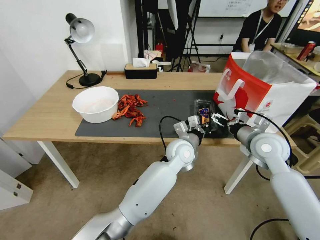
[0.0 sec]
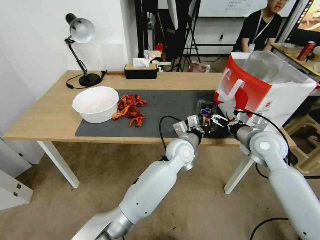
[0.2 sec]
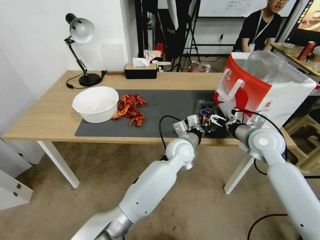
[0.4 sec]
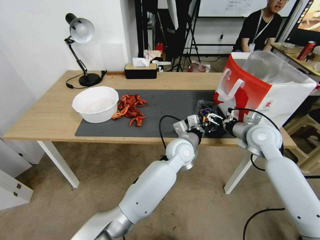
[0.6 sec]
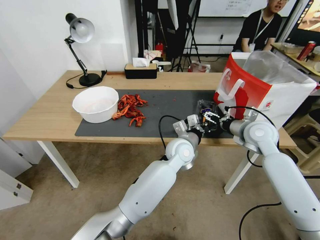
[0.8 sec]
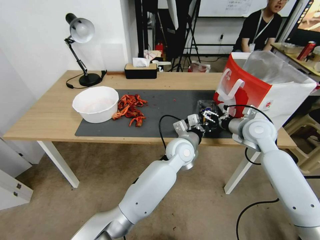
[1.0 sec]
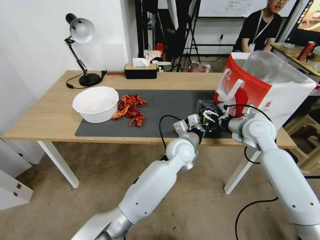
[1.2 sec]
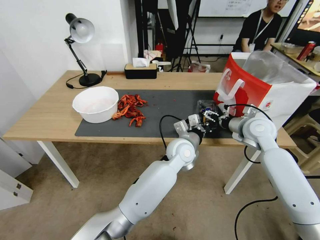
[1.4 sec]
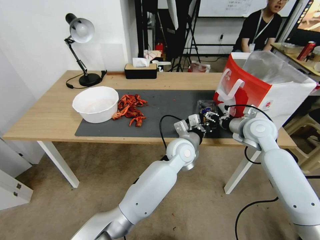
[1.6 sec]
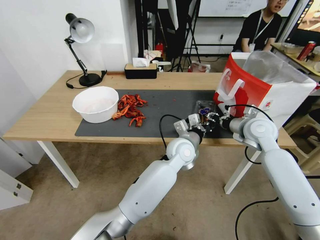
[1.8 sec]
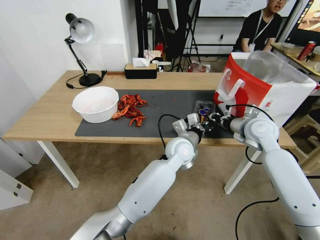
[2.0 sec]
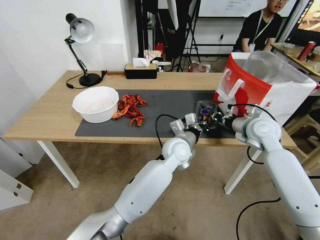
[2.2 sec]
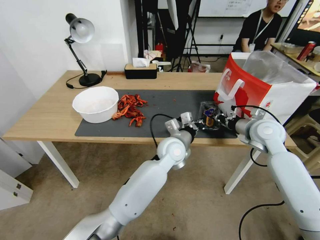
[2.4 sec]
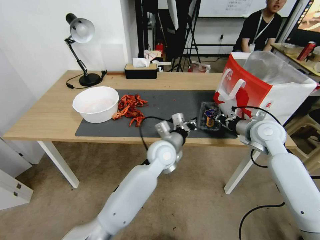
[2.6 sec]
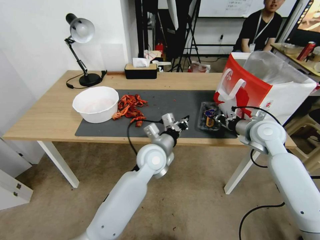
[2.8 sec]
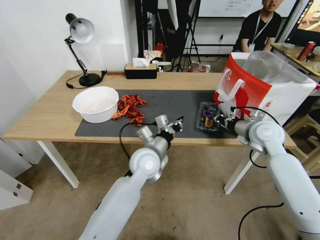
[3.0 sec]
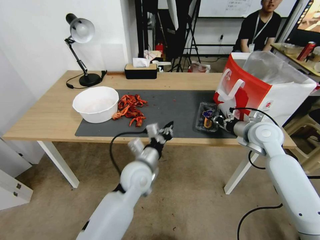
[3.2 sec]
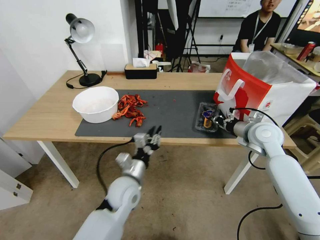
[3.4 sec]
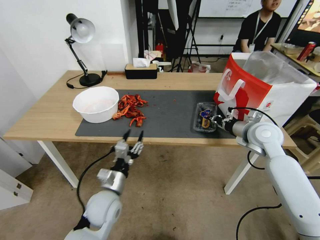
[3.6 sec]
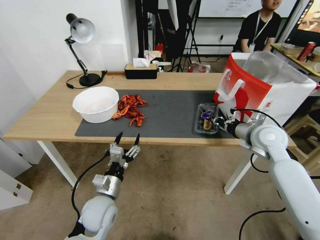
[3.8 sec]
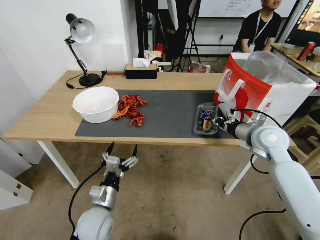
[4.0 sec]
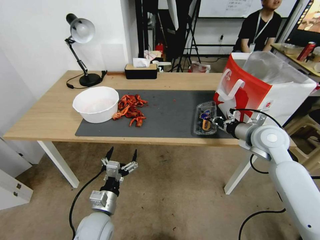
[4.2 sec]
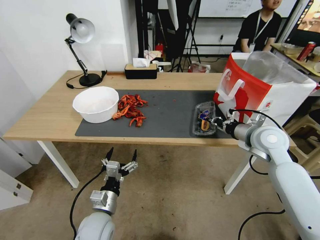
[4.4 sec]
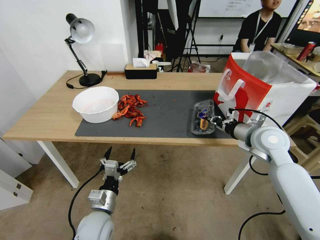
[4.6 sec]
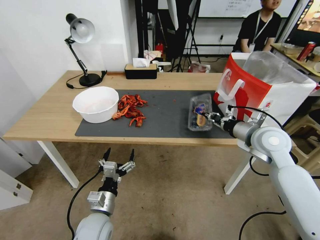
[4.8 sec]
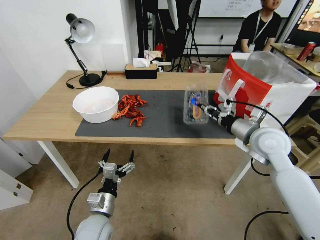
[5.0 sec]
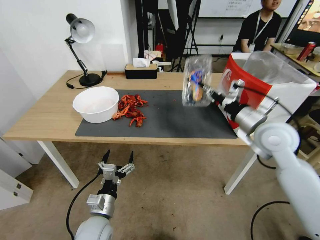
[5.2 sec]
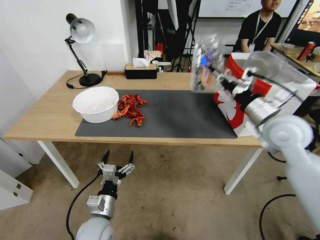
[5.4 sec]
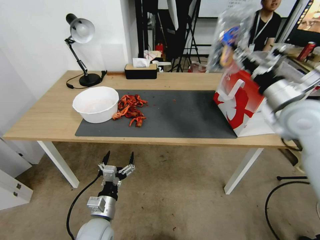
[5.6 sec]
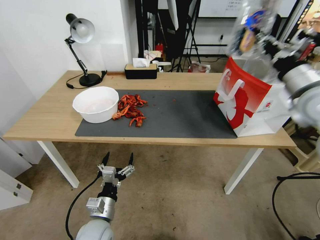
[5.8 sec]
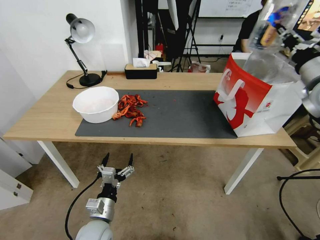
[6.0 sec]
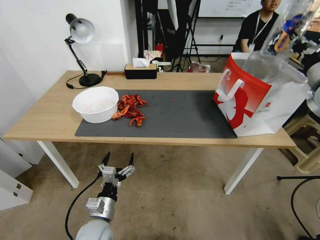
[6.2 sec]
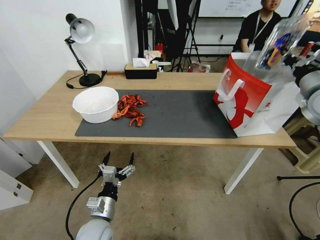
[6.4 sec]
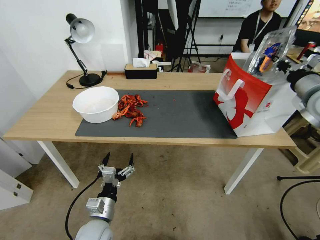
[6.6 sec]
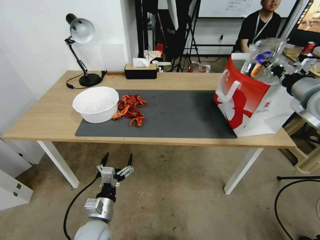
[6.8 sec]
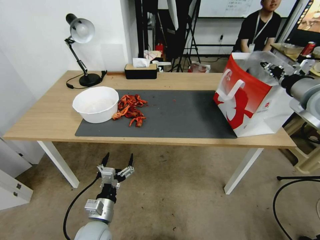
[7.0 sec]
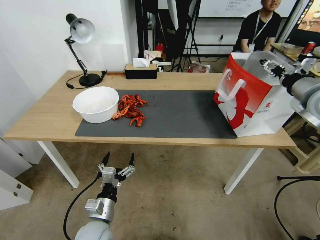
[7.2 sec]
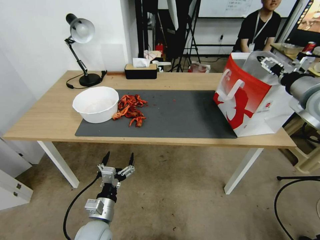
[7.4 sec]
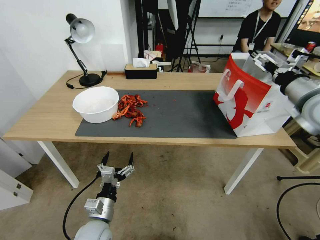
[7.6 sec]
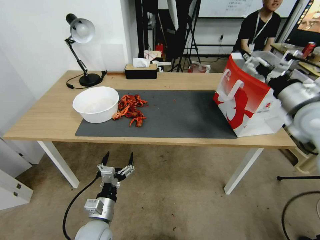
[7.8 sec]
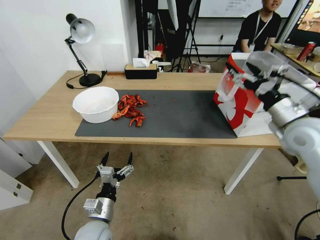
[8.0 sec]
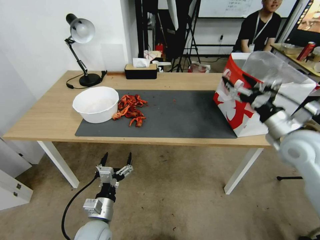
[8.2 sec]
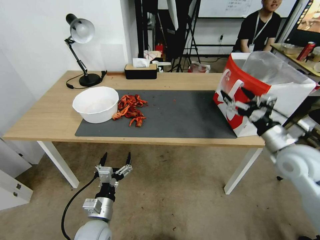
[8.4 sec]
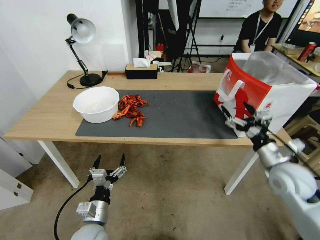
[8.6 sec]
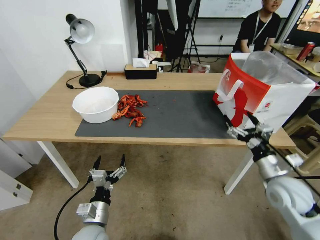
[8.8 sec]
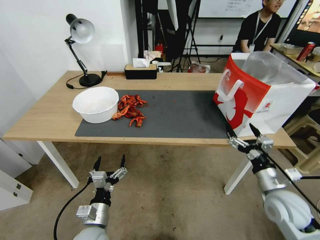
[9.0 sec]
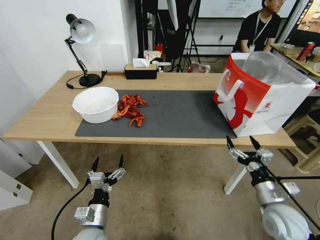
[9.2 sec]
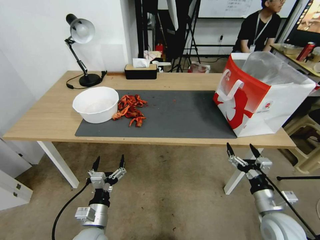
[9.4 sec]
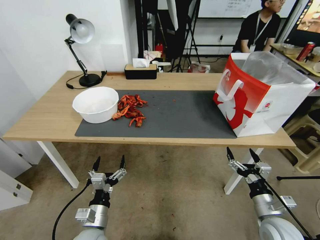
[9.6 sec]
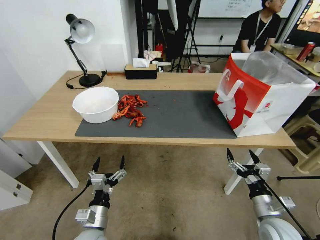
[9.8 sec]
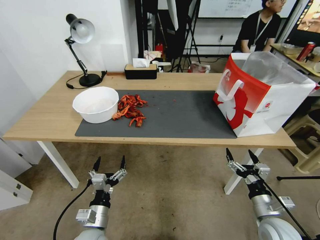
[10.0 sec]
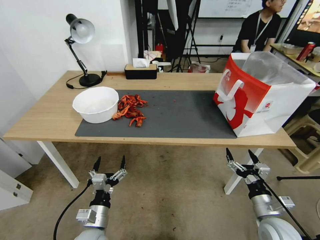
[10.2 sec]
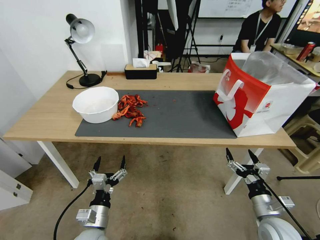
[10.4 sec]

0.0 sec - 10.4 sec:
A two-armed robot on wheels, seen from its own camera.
Task of the whole recording: Close the takeout container lid, then place the container into the takeout bag.
0.0 sec - 1.4 sec: The right gripper shifts roughly 5 cm forward.
1.4 sec - 3.0 sec: The right gripper closes; the left gripper shifts approximately 15 cm to the left and backward.
3.0 sec - 4.4 sec: The left gripper goes roughly 25 cm backward, to the left and downward, and opens up.
4.4 sec - 6.0 sec: The right gripper heads upward, covering about 15 cm.
6.0 sec - 7.4 sec: The right gripper opens.
7.4 sec - 9.0 sec: The right gripper travels downward and backward by roughly 30 cm.
9.0 sec - 10.4 sec: The right gripper goes roughly 10 cm downward and backward.

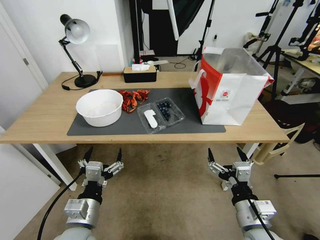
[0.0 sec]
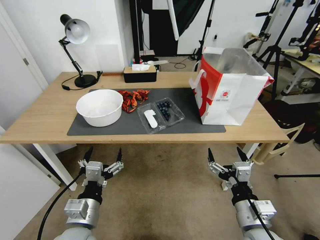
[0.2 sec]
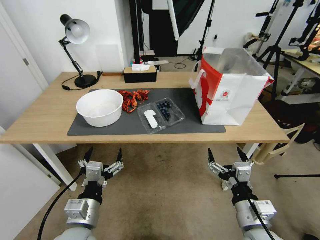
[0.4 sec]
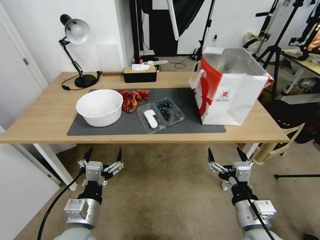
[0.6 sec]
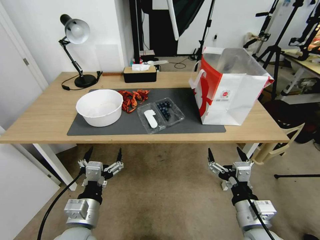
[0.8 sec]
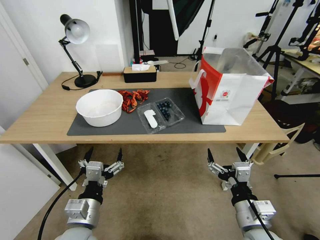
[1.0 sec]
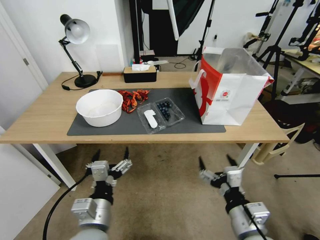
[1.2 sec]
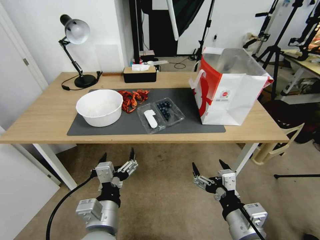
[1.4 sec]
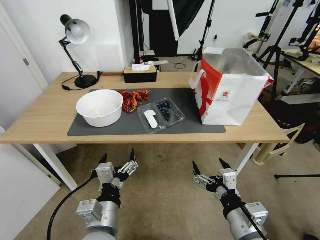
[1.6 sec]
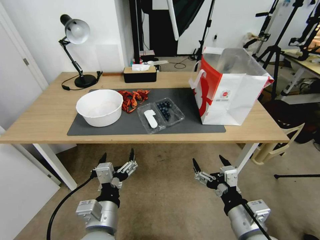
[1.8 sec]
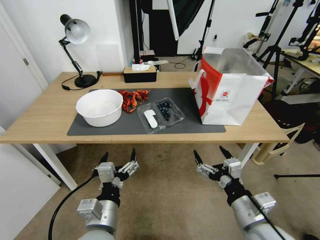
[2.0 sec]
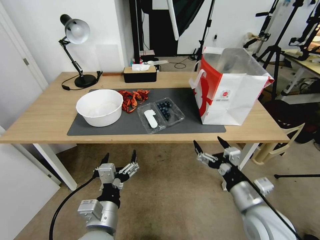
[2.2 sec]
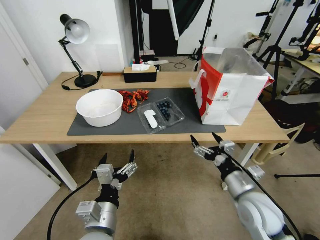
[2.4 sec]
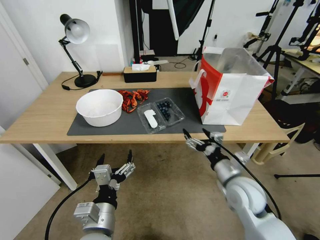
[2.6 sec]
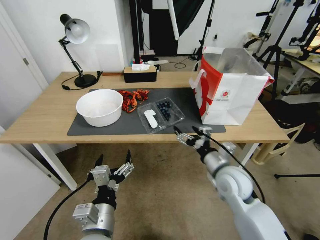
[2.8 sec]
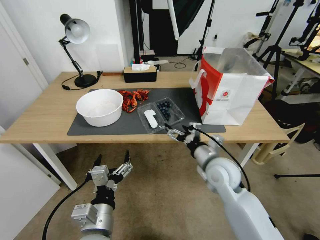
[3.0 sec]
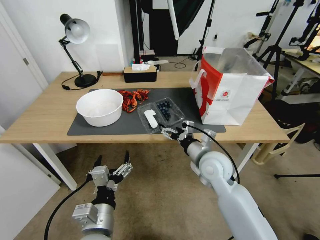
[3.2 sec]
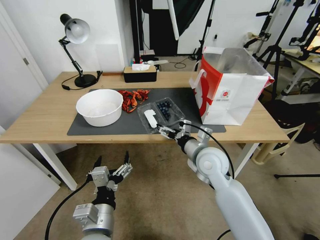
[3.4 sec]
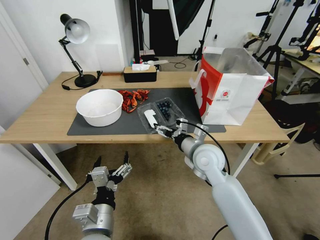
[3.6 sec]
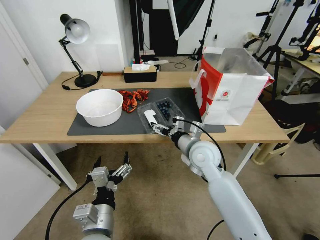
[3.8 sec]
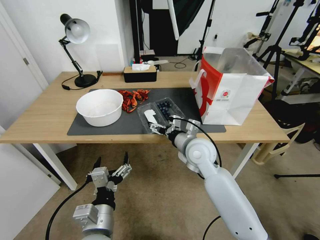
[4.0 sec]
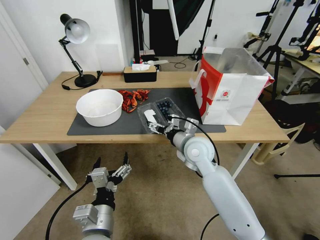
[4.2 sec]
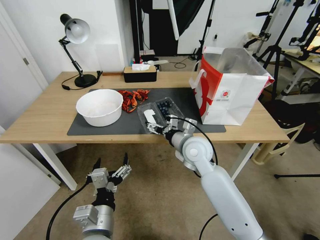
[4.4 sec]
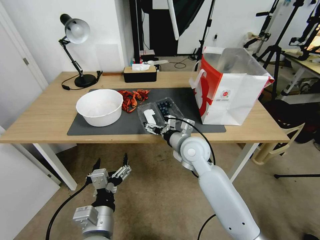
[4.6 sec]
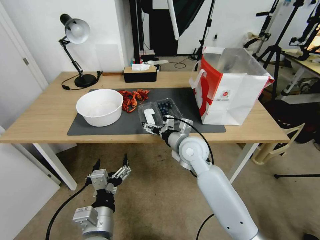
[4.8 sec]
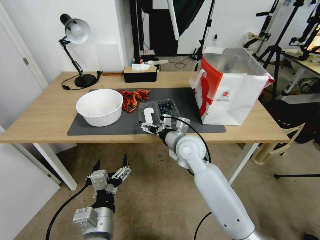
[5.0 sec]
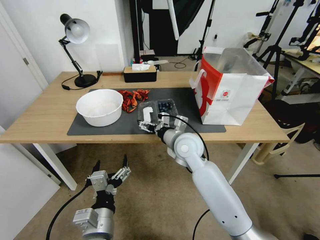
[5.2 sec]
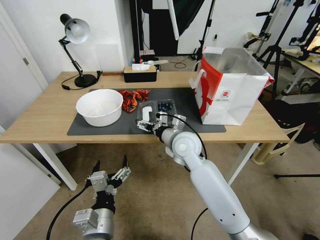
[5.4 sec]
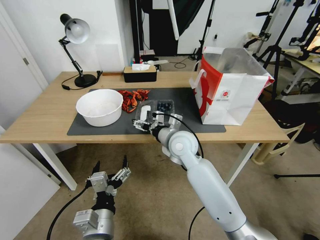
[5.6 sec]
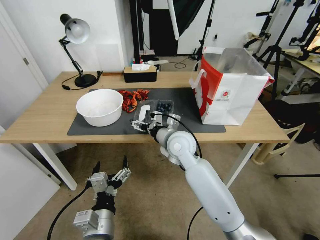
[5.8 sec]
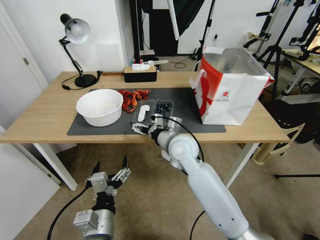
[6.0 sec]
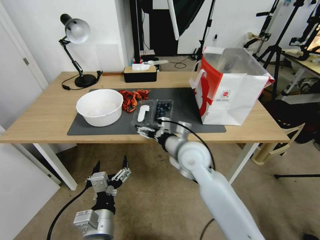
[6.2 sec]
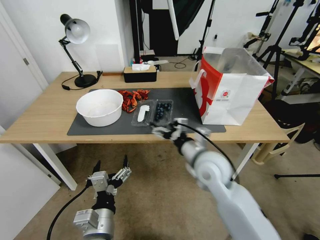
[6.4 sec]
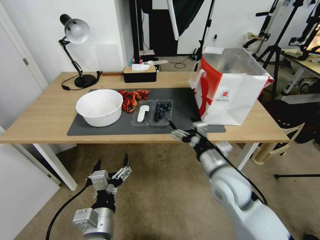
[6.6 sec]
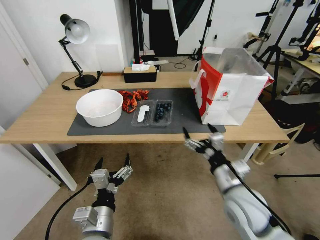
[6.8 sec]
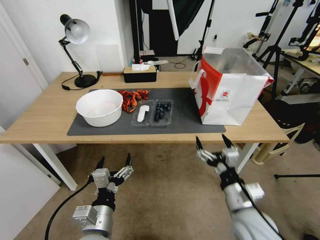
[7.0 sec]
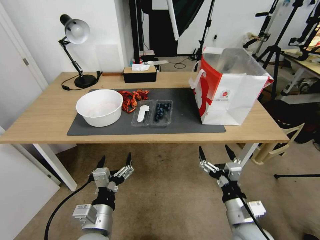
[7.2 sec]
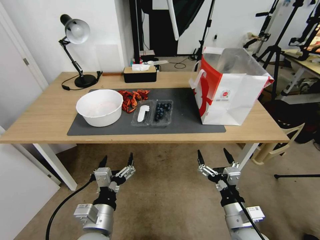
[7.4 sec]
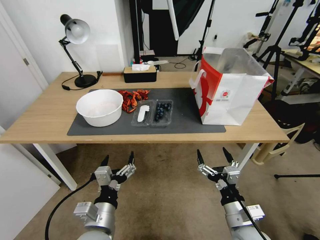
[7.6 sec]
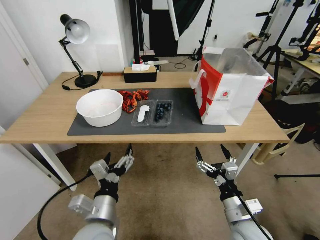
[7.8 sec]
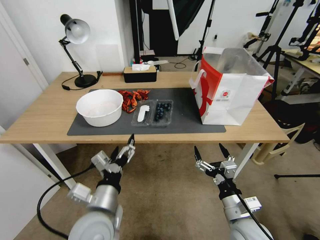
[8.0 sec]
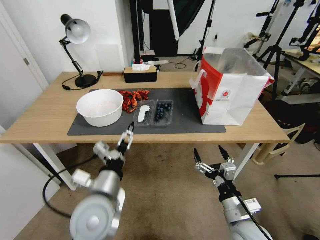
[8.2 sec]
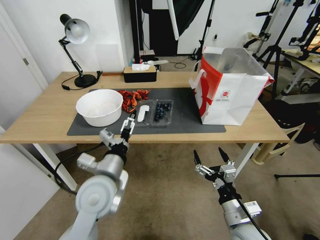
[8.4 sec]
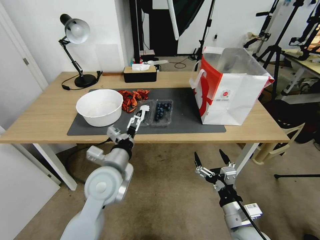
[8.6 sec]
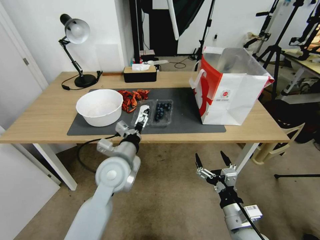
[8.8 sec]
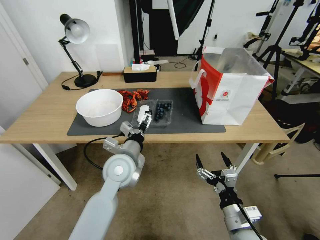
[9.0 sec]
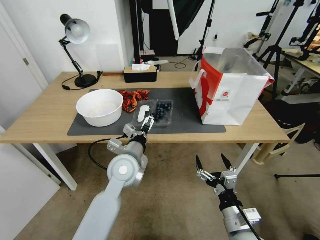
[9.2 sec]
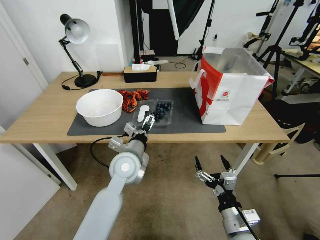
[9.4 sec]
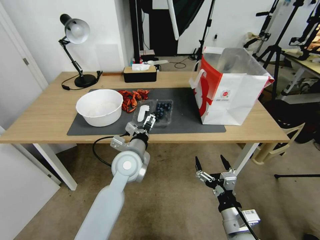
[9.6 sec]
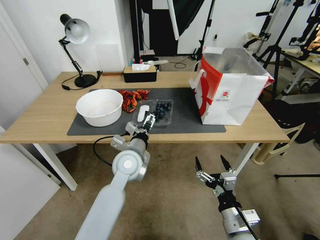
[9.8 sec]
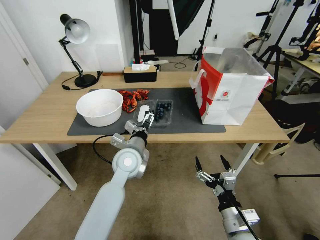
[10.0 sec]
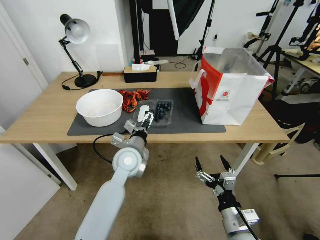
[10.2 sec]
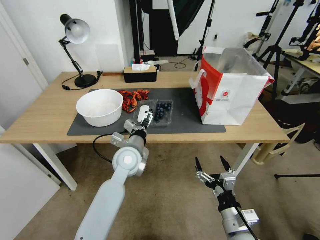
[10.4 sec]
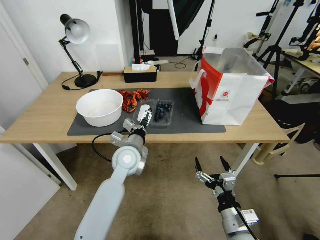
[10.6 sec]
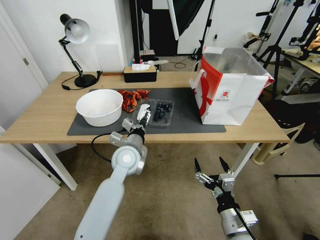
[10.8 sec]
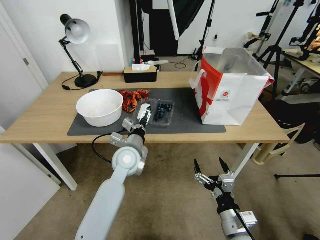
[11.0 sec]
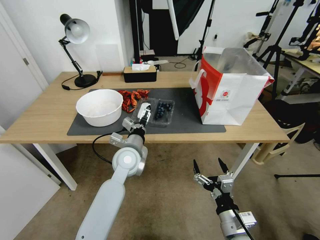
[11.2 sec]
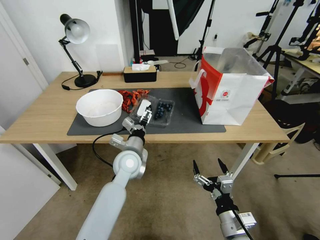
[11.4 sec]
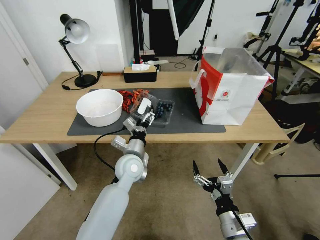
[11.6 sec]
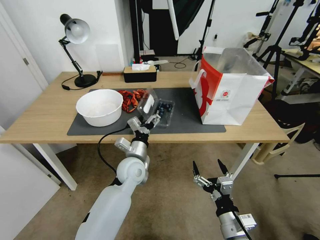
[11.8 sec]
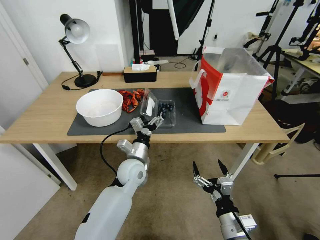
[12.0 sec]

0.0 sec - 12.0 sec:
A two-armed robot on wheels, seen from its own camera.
Task of the whole recording: Close the takeout container lid, then place the container into the takeout bag.
1.6 sec - 3.0 sec: The right gripper moves forward, about 20 cm.
3.0 sec - 4.4 sec: The right gripper goes roughly 10 cm to the left and forward.
4.4 sec - 6.0 sec: The grippers move only a little.
6.0 sec - 7.6 sec: The right gripper heads backward, to the right and downward, covering about 30 cm.
7.6 sec - 9.0 sec: The left gripper is displaced forward by roughly 20 cm.
9.0 sec - 10.4 sec: The left gripper shifts by roughly 5 cm.
10.4 sec - 12.0 sec: The left gripper heads downward, covering some 5 cm.
